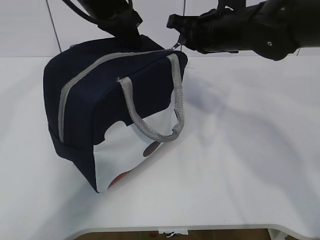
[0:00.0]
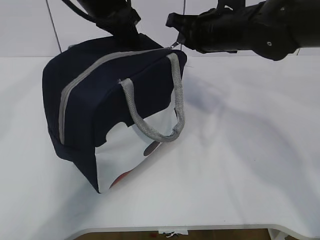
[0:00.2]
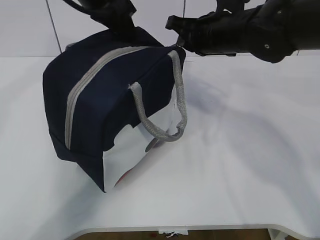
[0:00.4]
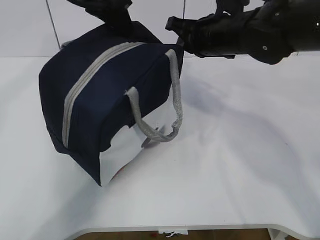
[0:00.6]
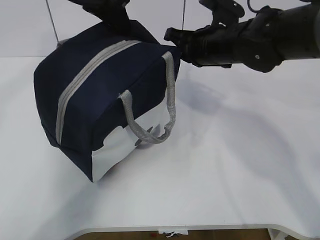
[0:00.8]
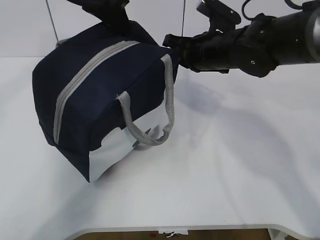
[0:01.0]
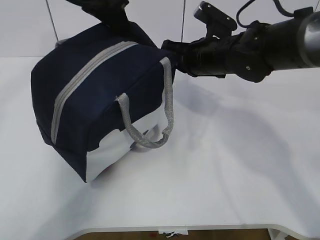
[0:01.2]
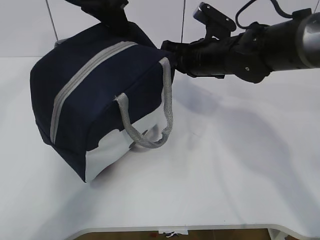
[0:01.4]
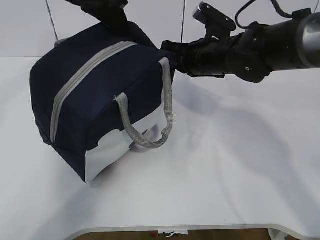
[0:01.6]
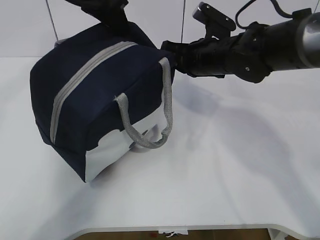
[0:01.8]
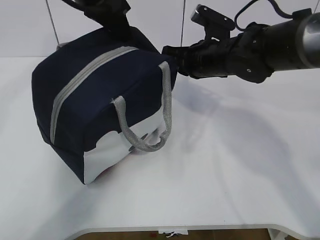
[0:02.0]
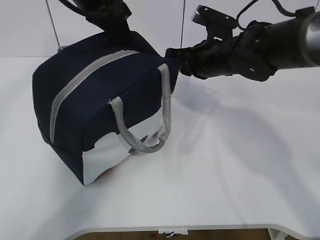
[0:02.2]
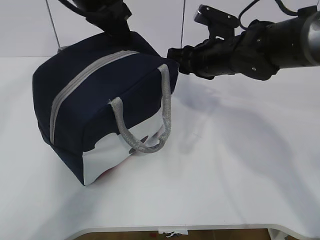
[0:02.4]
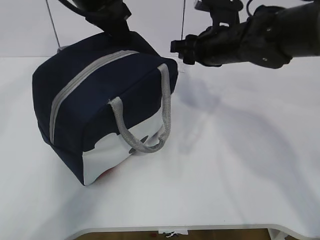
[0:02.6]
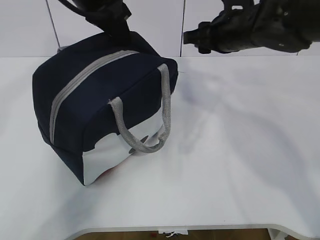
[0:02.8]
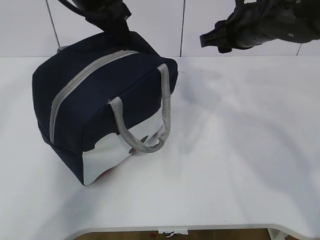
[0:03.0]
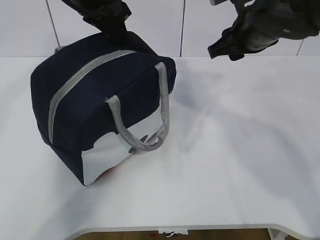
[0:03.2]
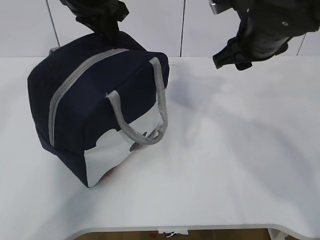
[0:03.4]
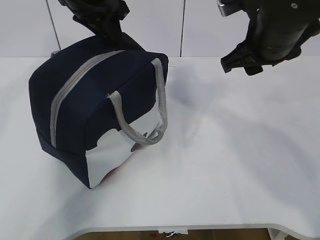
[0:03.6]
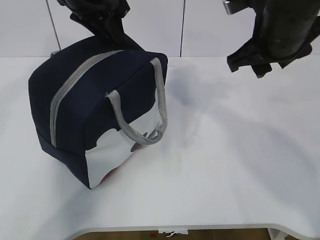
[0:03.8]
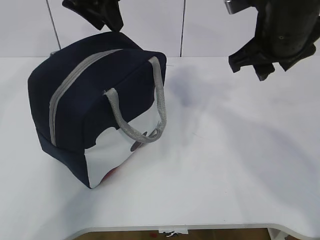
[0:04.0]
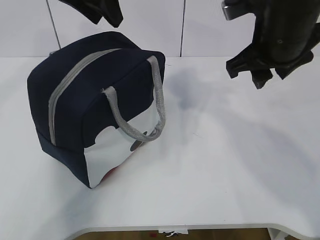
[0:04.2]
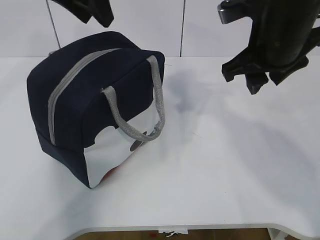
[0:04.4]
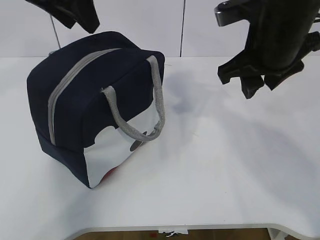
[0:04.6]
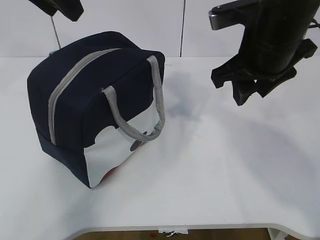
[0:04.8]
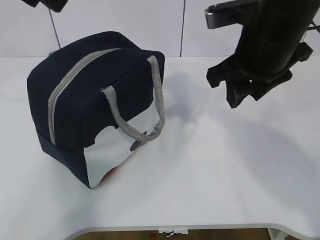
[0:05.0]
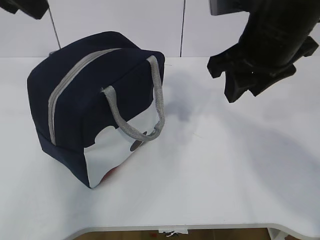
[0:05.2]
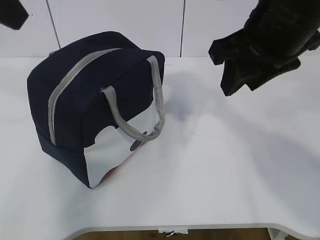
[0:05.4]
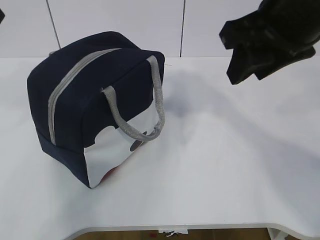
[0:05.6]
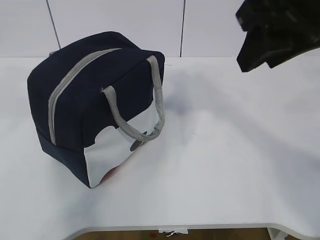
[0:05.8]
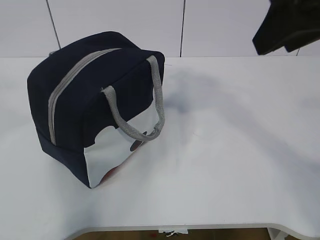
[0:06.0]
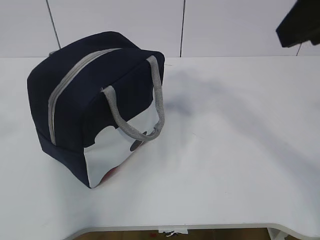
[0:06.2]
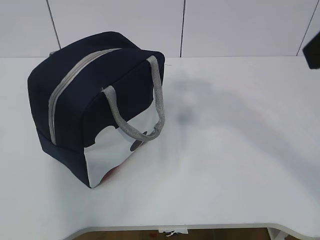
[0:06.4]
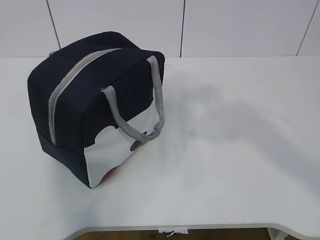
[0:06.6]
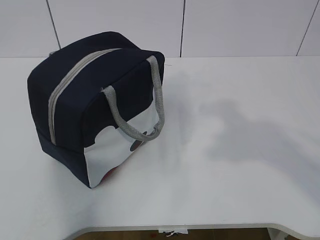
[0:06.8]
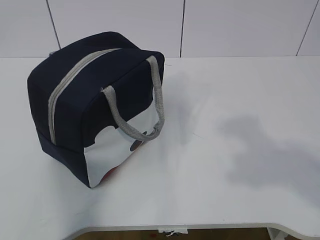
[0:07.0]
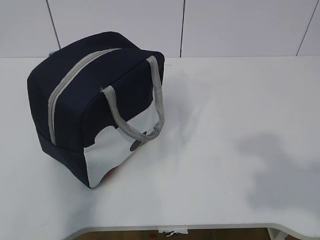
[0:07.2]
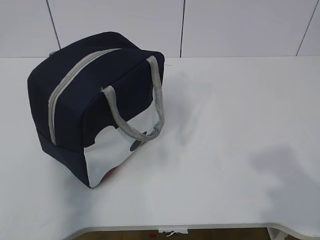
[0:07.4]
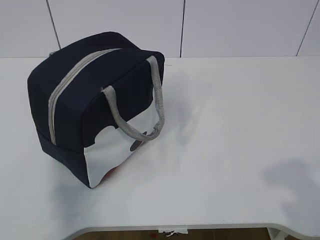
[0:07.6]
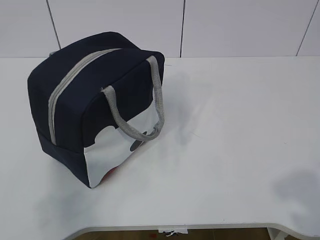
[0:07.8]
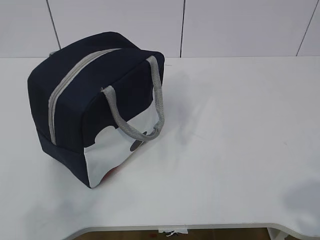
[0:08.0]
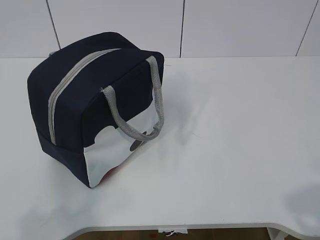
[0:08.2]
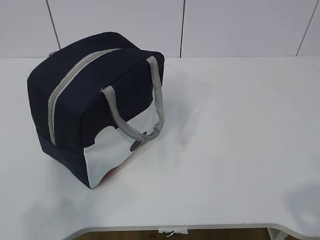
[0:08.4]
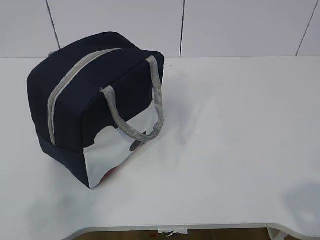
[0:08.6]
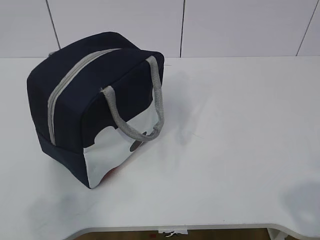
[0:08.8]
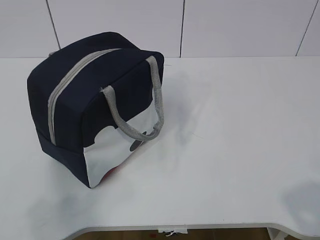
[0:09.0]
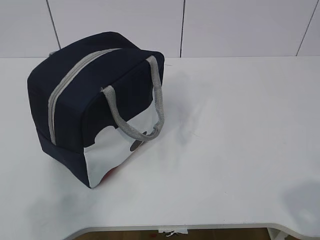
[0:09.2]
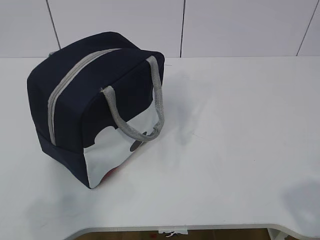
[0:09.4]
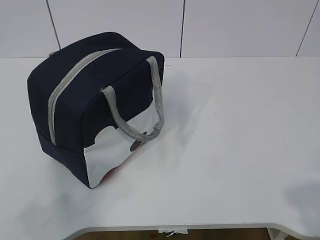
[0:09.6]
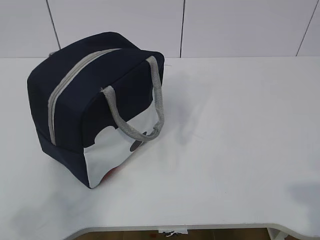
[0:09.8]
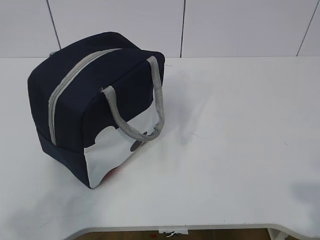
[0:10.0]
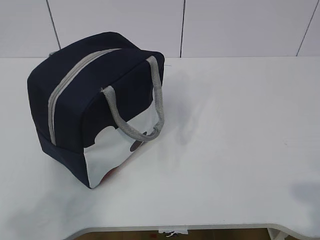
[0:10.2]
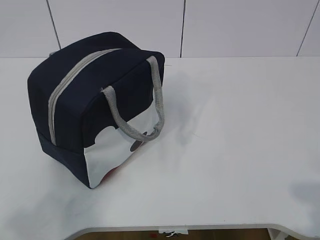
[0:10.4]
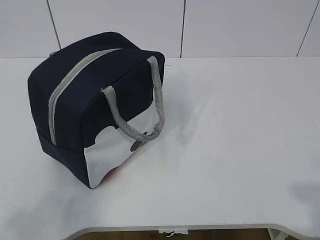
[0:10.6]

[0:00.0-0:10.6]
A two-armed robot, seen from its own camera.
Step, 0:00.0 to 0:04.0: zip up the zipper to close the bag.
0:00.0 to 0:01.6: The right gripper moves downward, some 5 cm.
0:01.6 to 0:03.0: The right gripper moves upward, some 5 cm, and opens its fingers.
0:03.0 to 0:04.6: The left gripper ends up approximately 5 cm from where it was, and opens up; the right gripper shifts about 10 cm backward.
0:04.6 to 0:06.0: The left gripper is displaced backward and to the left by roughly 20 cm, while the right gripper goes roughly 15 cm upward and backward.
0:06.0 to 0:07.6: The left gripper is displaced backward, downward and to the left by about 20 cm. Meanwhile the right gripper goes approximately 25 cm backward, to the right and downward.

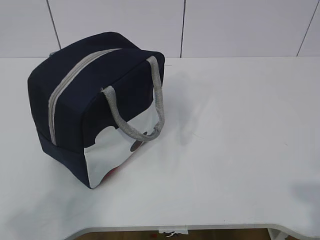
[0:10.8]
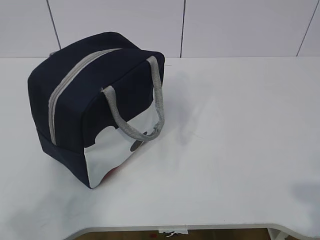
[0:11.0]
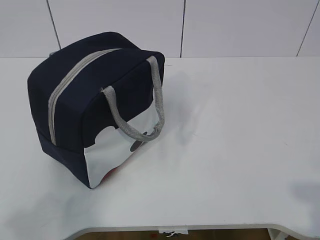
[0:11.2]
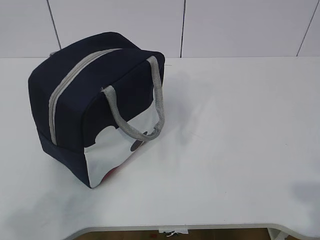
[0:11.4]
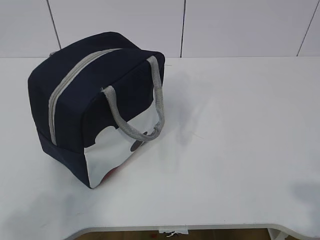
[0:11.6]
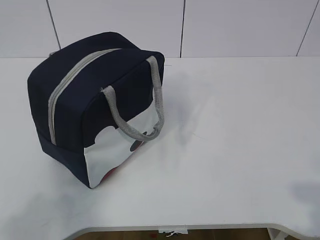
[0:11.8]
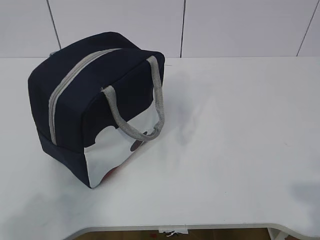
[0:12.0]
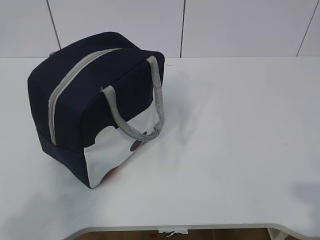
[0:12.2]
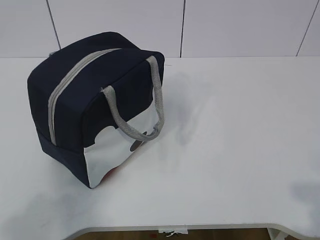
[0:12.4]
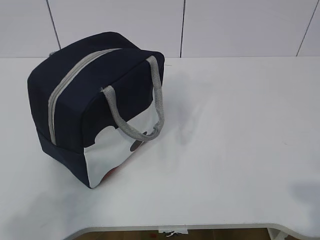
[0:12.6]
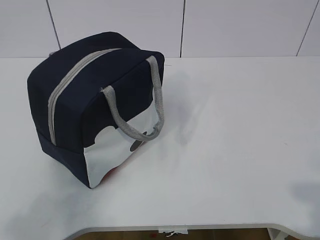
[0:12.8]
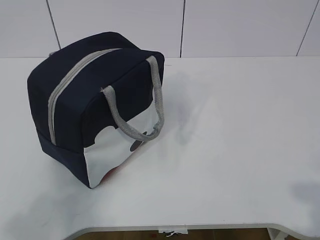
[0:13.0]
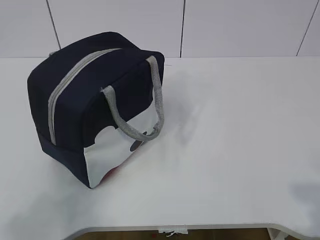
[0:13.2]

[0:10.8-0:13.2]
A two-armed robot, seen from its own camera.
0:12.0 to 0:13.2: Both grippers stay put.

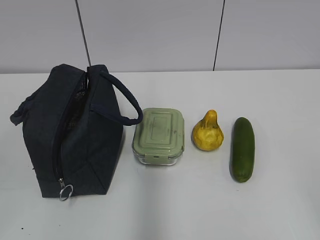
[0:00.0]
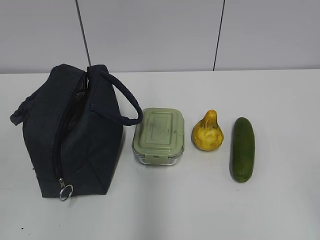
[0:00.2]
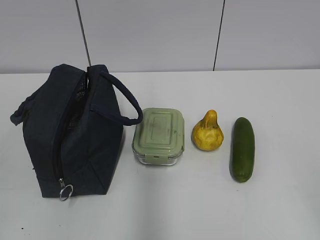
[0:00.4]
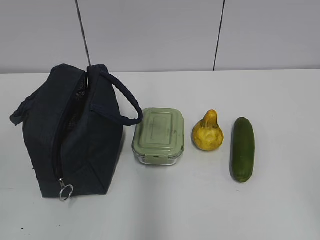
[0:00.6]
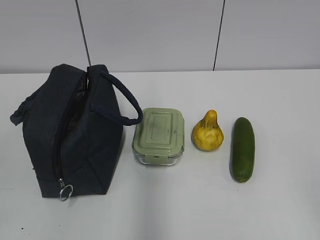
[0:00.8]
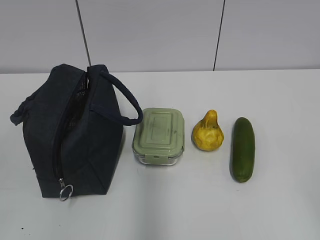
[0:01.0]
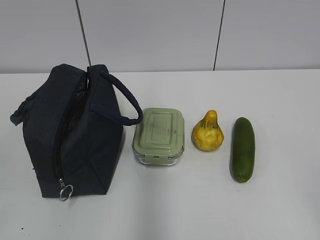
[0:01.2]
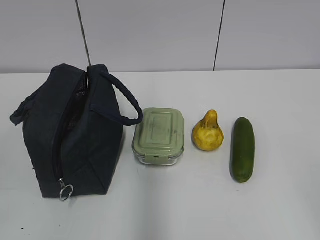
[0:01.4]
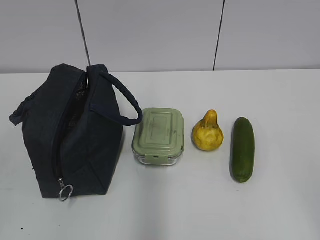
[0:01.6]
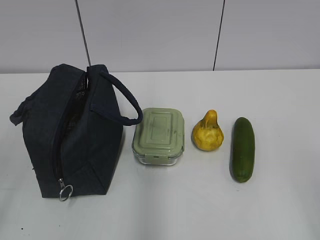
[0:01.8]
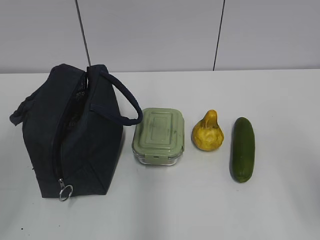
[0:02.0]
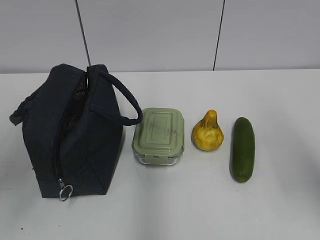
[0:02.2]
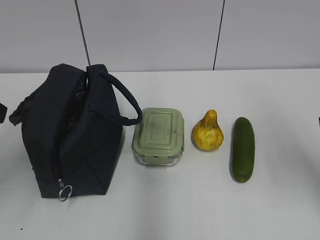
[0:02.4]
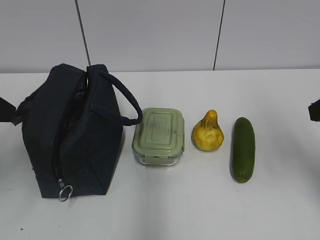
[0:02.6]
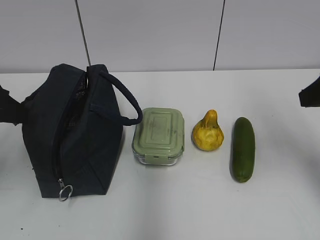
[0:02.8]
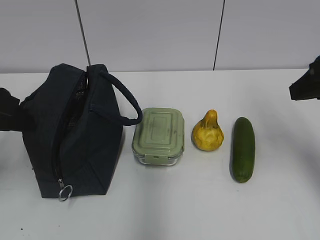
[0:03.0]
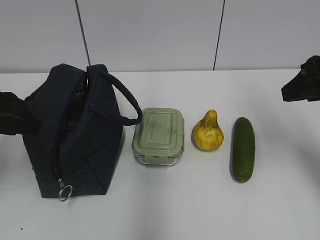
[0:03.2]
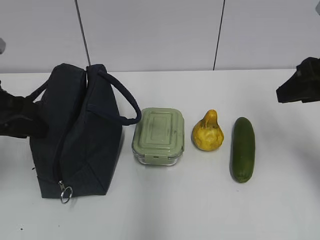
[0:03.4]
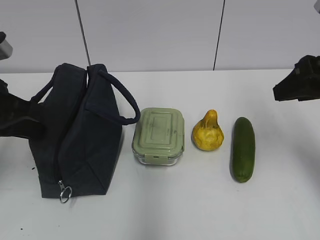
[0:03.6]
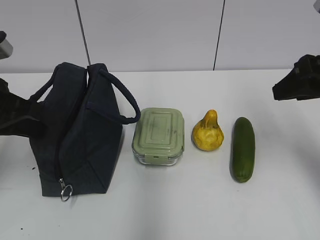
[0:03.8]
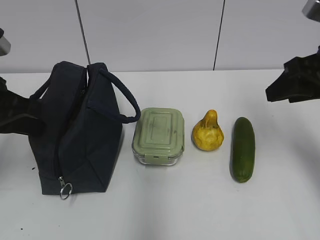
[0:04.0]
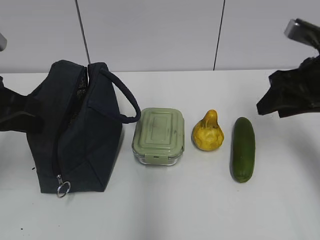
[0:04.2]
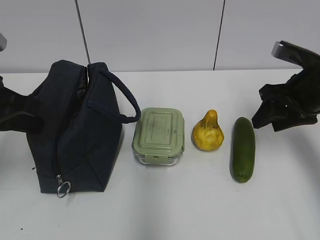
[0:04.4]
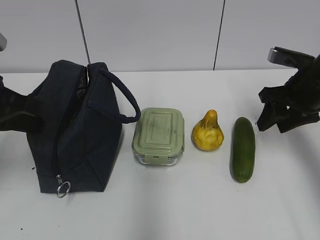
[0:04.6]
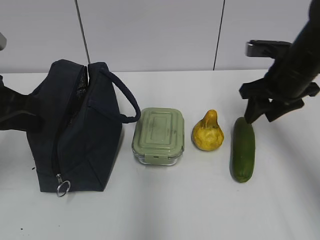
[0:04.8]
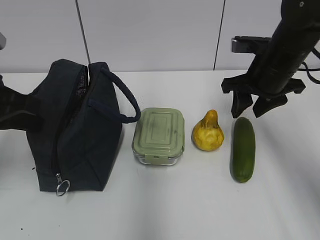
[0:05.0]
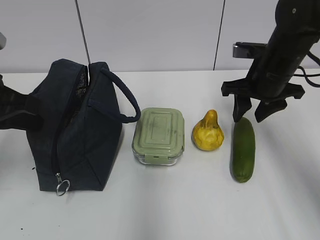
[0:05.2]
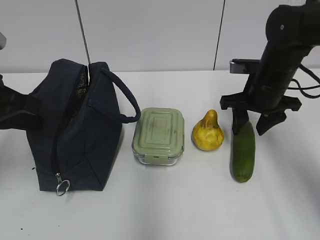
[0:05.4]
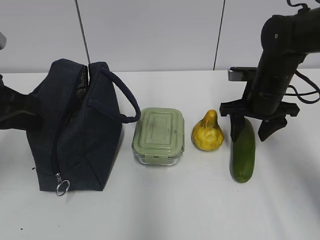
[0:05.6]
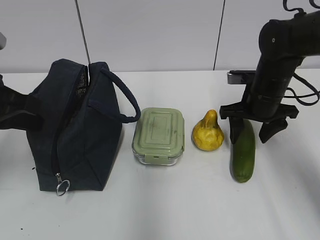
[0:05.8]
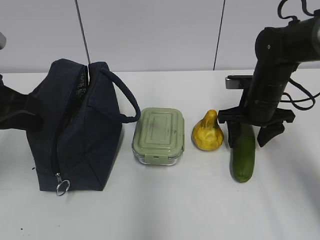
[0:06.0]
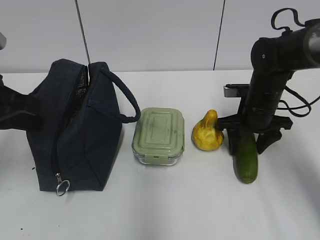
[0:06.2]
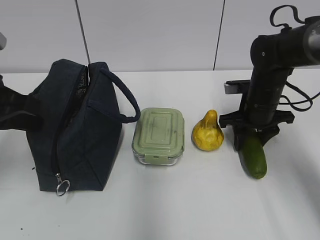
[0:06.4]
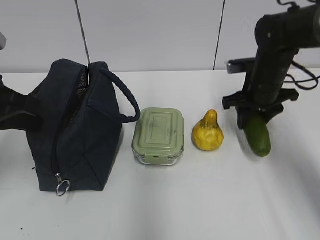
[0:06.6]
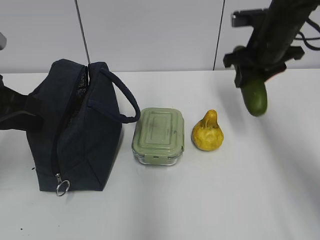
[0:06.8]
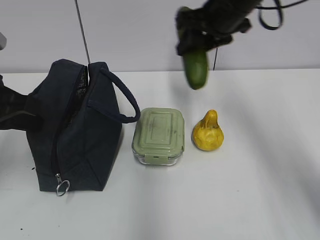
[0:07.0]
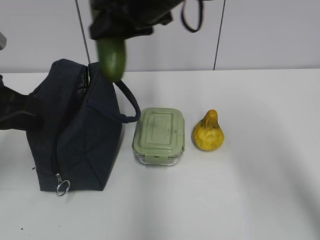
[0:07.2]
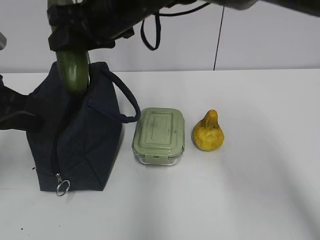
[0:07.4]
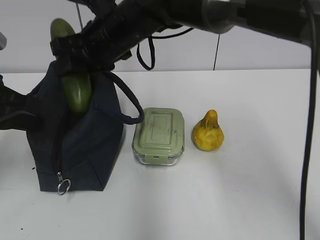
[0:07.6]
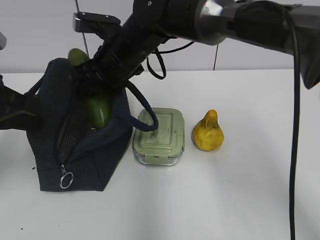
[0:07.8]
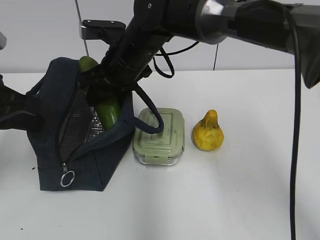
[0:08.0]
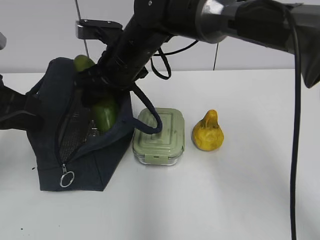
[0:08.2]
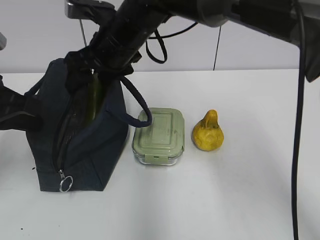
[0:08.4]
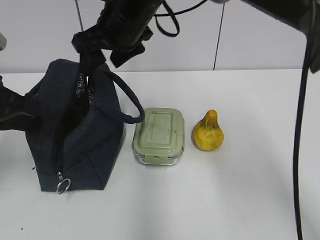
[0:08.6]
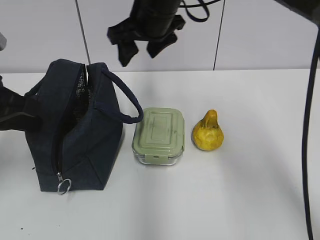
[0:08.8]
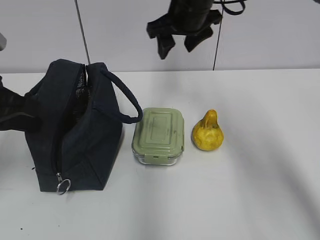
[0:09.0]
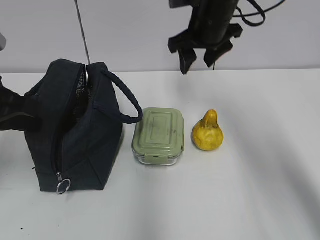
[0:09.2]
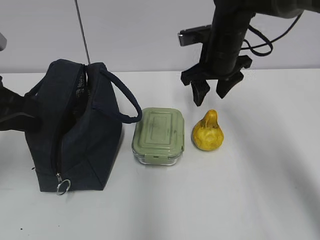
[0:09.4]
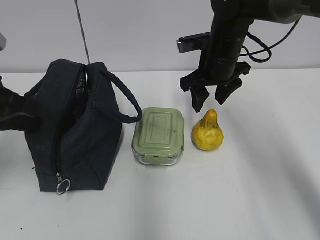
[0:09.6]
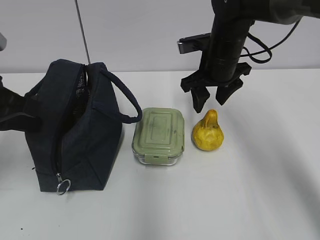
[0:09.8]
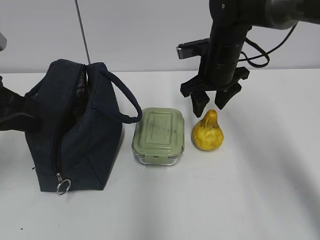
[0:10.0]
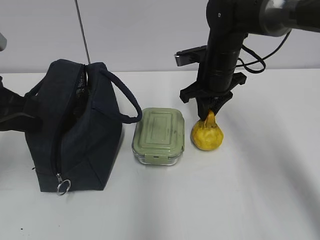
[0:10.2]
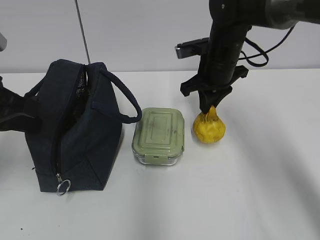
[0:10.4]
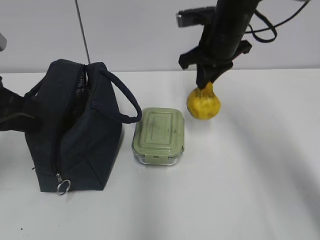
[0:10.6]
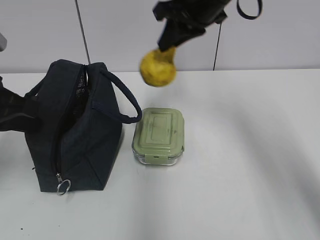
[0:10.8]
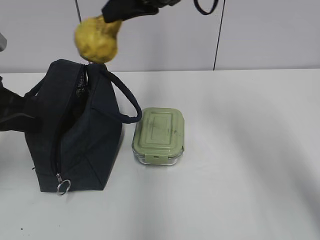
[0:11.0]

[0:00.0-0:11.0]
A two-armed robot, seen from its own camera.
0:01.6 to 0:03.2: Both grippers travel together forward, about 25 cm.
0:03.2 to 0:04.8: The left gripper closes up. Meanwhile the right gripper goes approximately 15 cm forward and downward.
0:04.8 to 0:06.2: The right gripper is displaced downward by some 10 cm.
0:06.2 to 0:07.8: The right gripper is displaced to the left and upward by approximately 25 cm.
0:07.8 to 0:09.4: The right gripper moves to the right, approximately 15 cm.
0:09.4 to 0:11.0: The right gripper is displaced upward and to the left by roughly 15 cm, and closes up.
